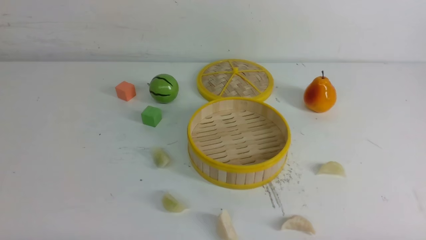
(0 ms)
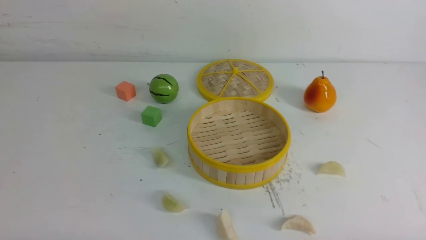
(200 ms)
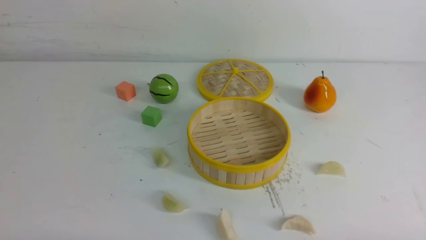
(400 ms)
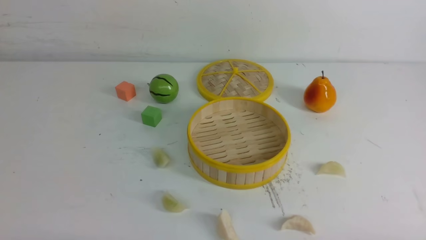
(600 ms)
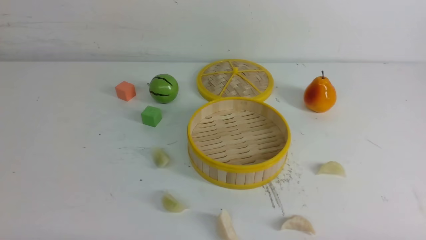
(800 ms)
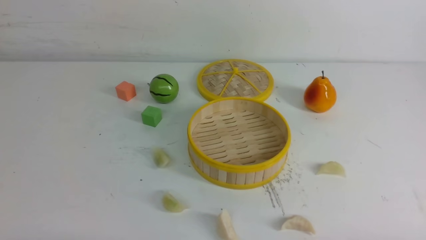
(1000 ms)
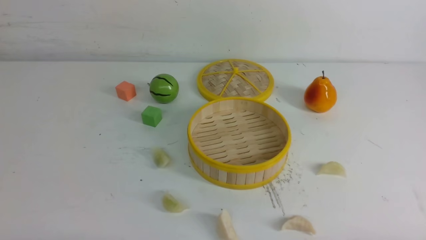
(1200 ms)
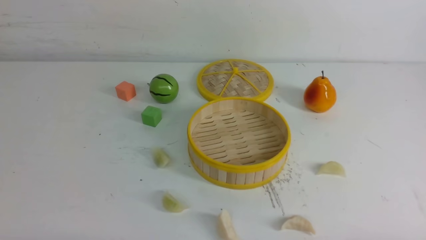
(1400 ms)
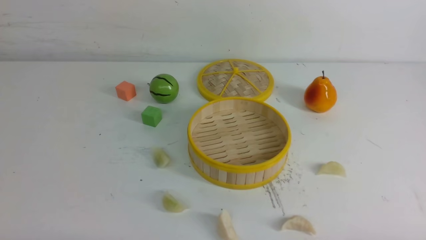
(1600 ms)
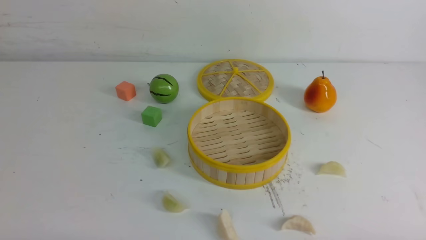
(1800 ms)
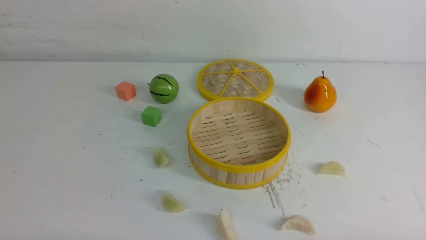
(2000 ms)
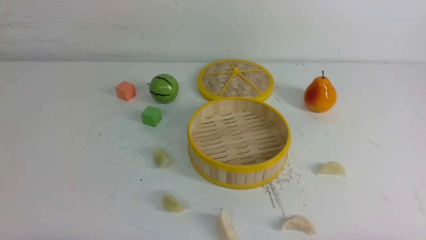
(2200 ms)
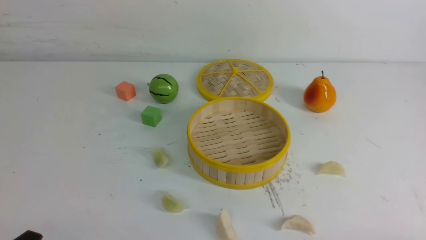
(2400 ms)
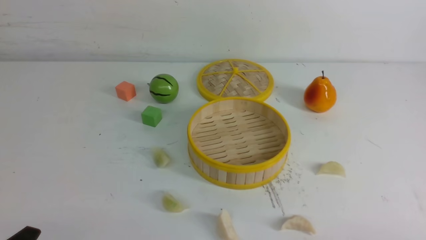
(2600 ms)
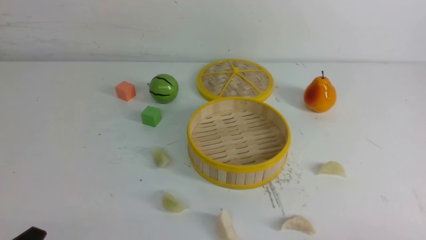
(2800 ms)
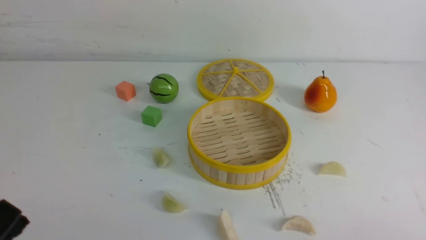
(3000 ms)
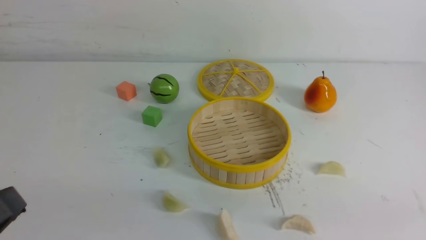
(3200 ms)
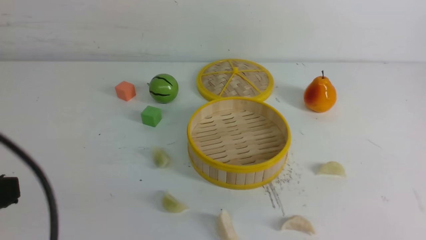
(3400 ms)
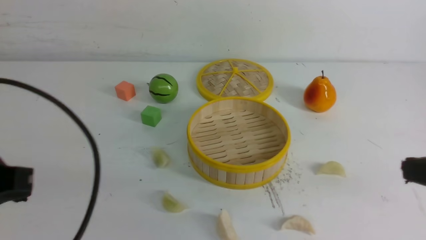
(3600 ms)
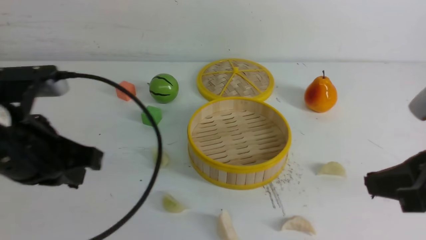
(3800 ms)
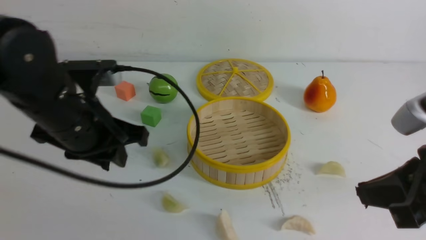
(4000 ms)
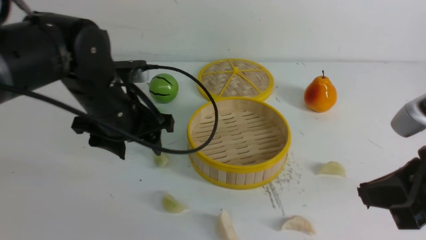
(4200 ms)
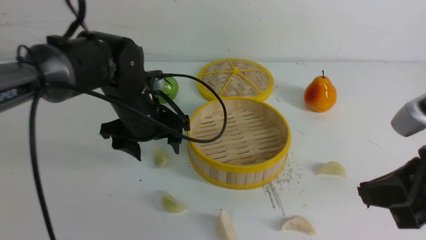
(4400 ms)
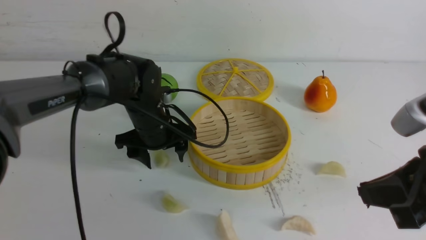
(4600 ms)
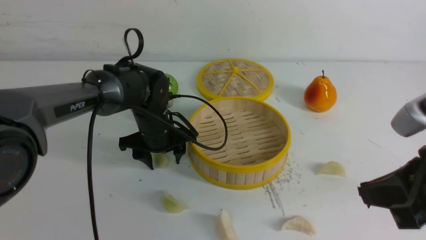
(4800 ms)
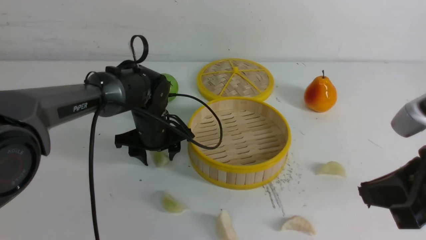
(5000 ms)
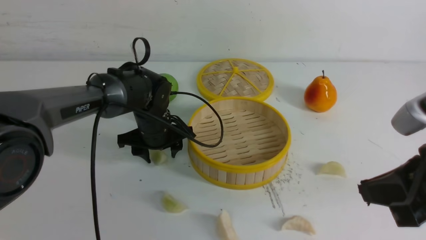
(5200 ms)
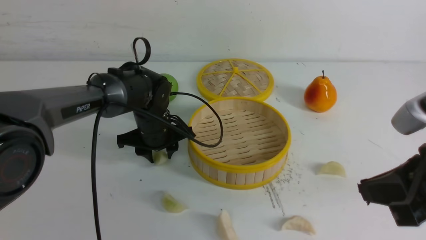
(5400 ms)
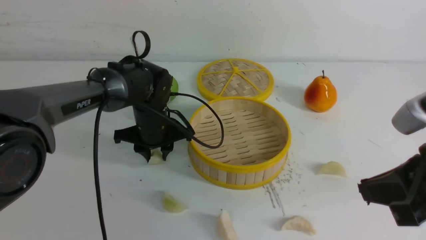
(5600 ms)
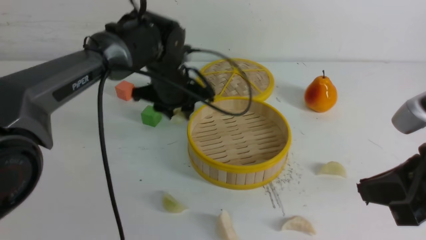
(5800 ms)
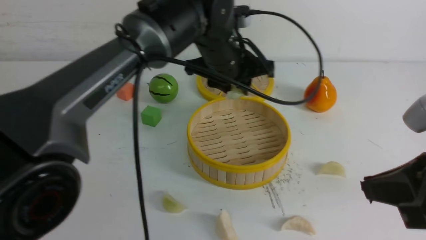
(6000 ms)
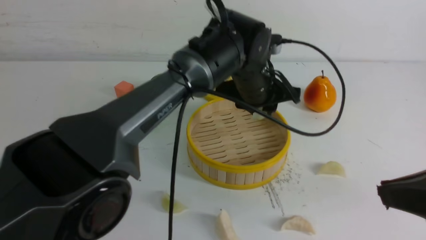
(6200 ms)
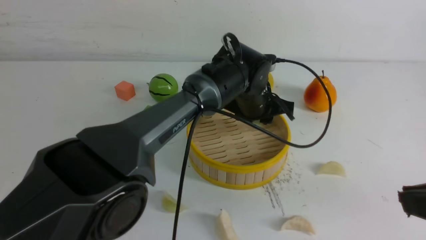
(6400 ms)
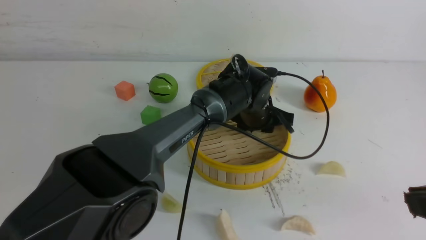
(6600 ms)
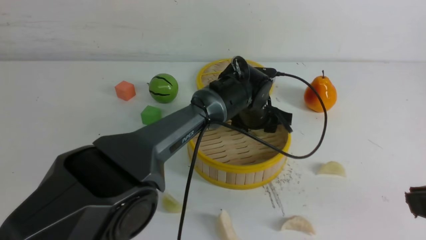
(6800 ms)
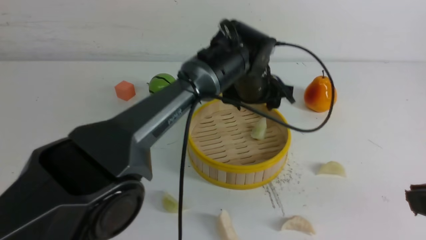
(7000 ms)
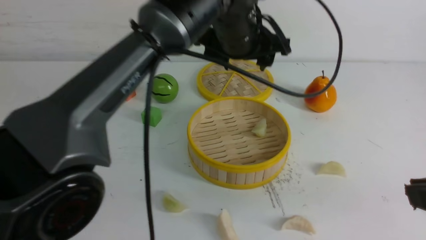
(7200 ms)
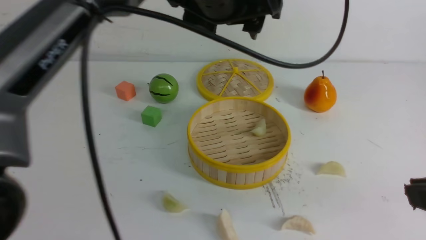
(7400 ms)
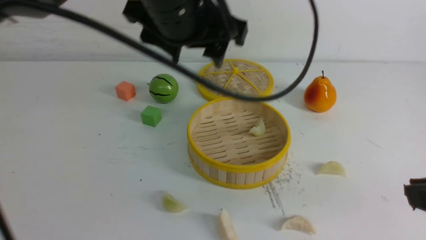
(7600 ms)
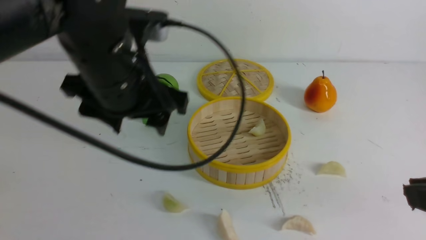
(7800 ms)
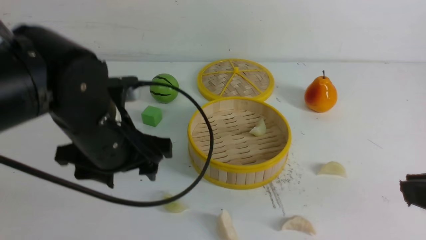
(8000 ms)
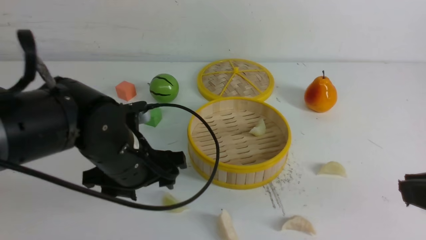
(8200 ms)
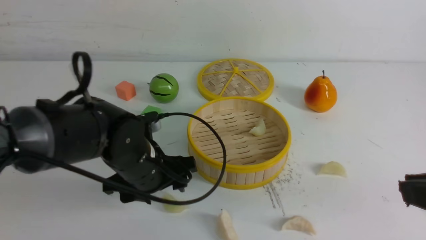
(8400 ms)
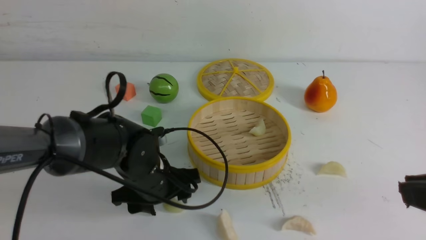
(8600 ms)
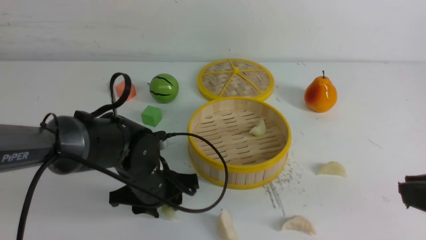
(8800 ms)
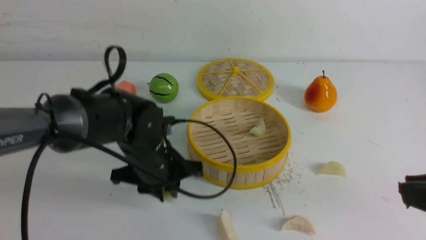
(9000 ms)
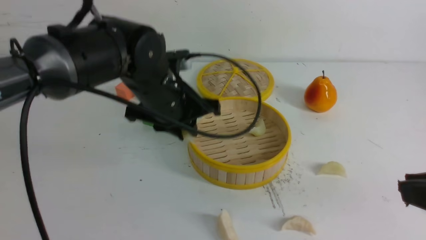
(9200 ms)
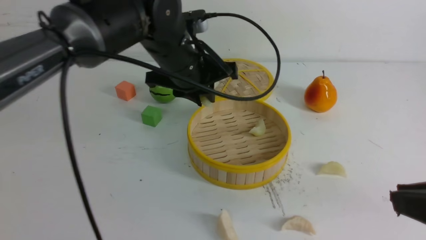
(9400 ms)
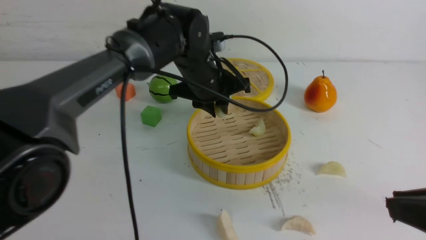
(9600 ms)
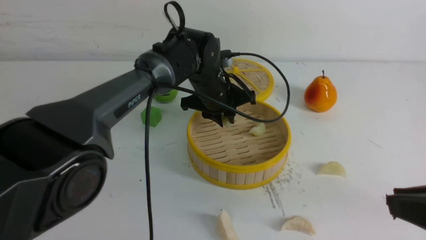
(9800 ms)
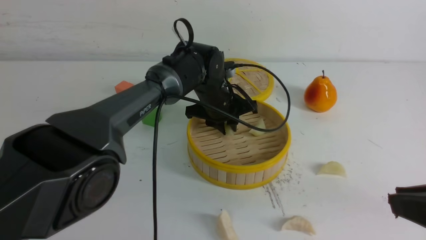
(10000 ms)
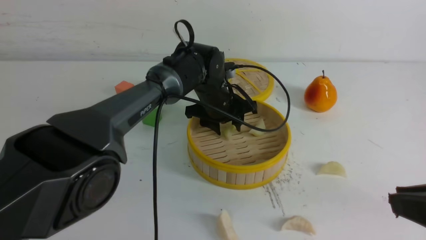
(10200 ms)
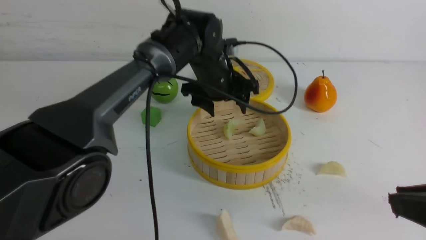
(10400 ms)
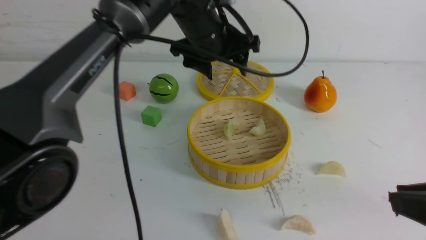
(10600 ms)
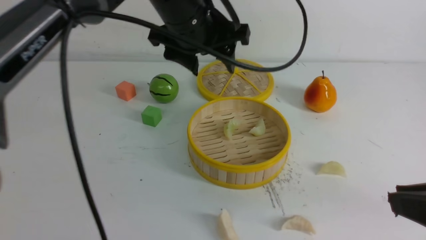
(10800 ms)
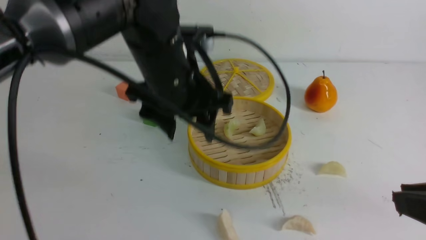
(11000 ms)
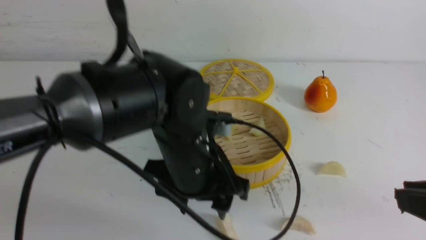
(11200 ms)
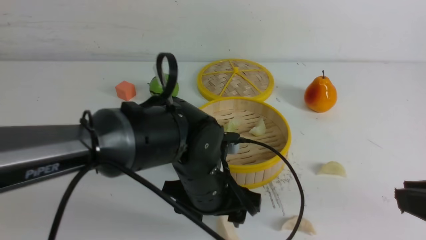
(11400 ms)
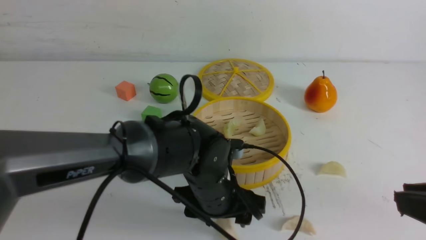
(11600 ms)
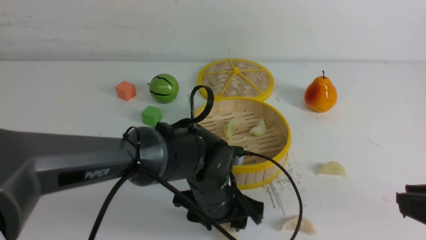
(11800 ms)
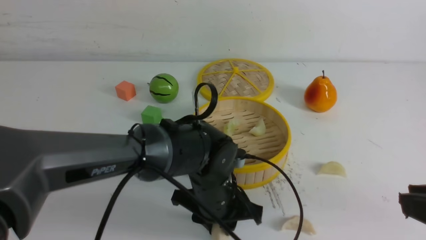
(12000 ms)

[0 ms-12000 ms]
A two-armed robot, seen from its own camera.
Task of the whole recording: put the dumplings into the steamer on the white table.
Step, 0 ms to 5600 ms: use the left arm to grab a dumpling.
Step, 5800 ms to 6800 ms: use the left arm to put the dumpling into the steamer.
Step, 7000 ms to 8800 ms: use the left arm to grab a dumpling.
Step, 9000 ms to 10200 ms: use the left arm to put the dumpling into the steamer.
Step, 10400 ms to 12000 ms: use the left arm to grab a dumpling.
0 ms to 1600 ms: The two grippers keep their place.
1600 ms to 3000 ms: The left gripper is displaced upward by approximately 10 cm.
3000 ms to 4400 ms: The left gripper heads forward, covering some 35 cm, and opens its fingers. Meanwhile the right gripper moves forward, upward and to the left, about 15 cm, and closes.
4400 ms to 6000 ms: The left gripper goes about 15 cm to the right and upward, and closes its fingers.
6000 ms to 7600 ms: The left gripper moves upward, backward and to the left, roughly 15 cm, and opens its fingers, while the right gripper shifts by about 5 cm.
7600 ms to 9000 ms: The left gripper moves downward, roughly 20 cm, and closes up.
9000 ms to 10400 ms: The left gripper is displaced forward, to the right and upward by approximately 15 cm, and opens.
10400 ms to 12000 ms: The left gripper is displaced backward and downward by roughly 20 cm, and closes its fingers.

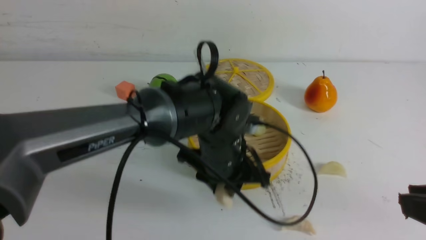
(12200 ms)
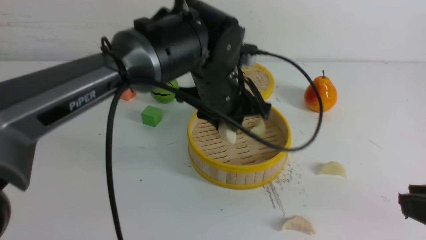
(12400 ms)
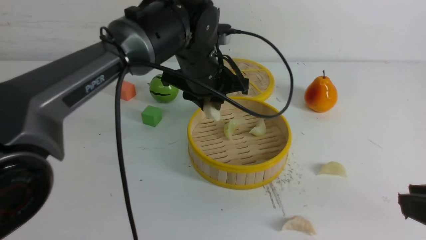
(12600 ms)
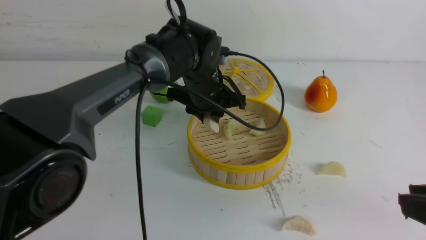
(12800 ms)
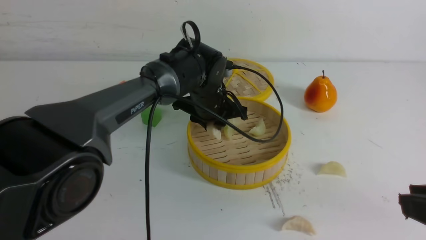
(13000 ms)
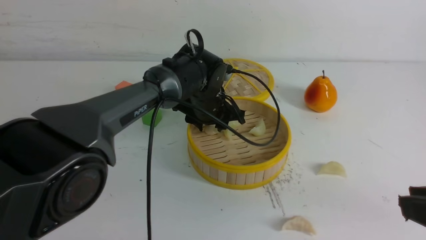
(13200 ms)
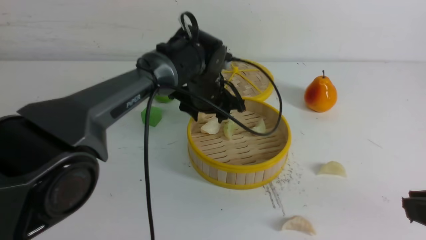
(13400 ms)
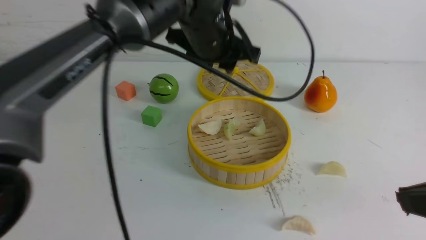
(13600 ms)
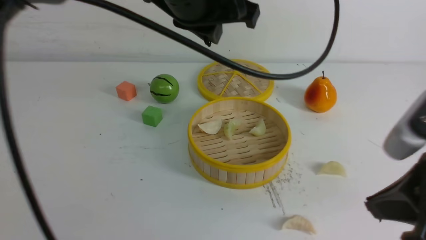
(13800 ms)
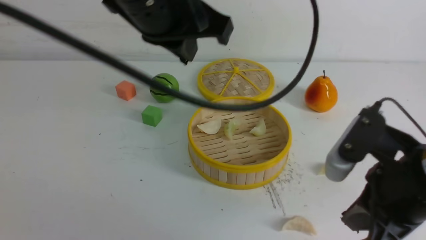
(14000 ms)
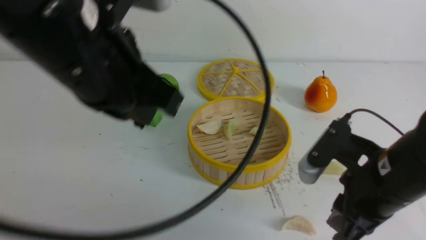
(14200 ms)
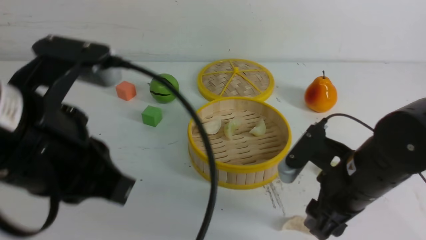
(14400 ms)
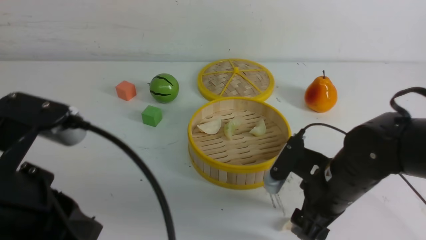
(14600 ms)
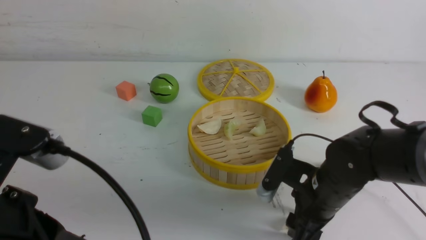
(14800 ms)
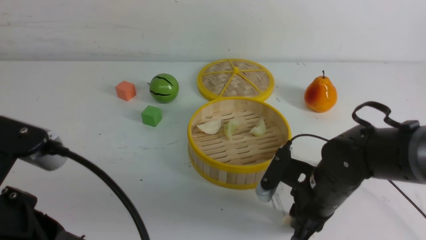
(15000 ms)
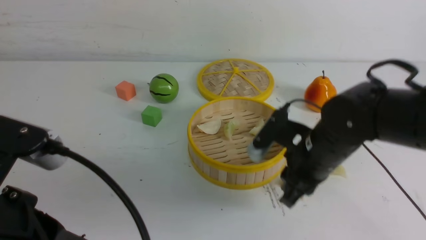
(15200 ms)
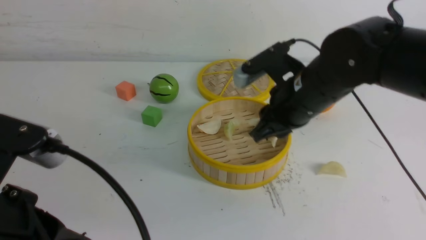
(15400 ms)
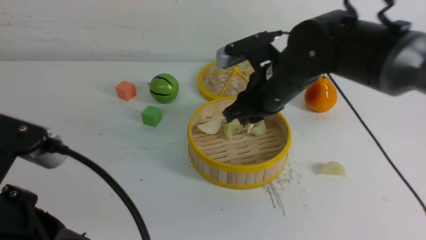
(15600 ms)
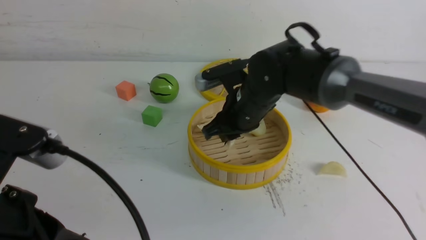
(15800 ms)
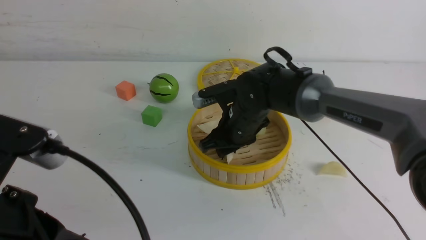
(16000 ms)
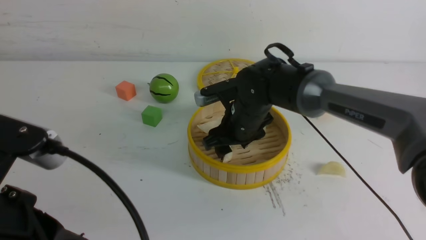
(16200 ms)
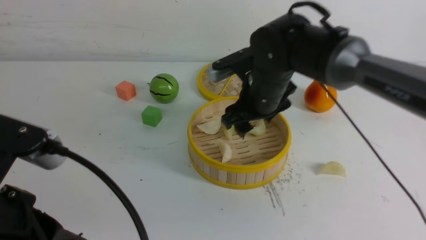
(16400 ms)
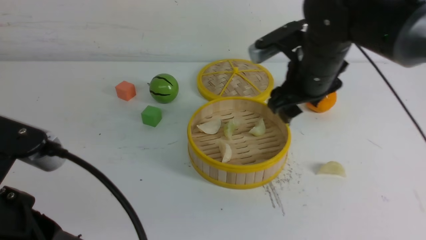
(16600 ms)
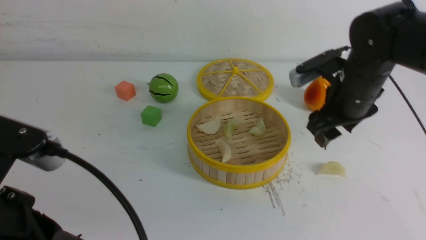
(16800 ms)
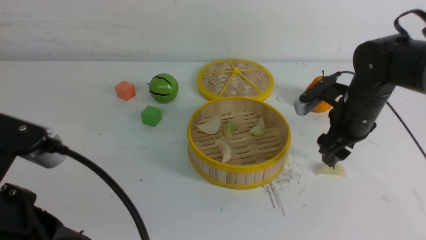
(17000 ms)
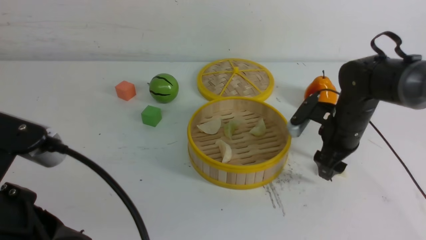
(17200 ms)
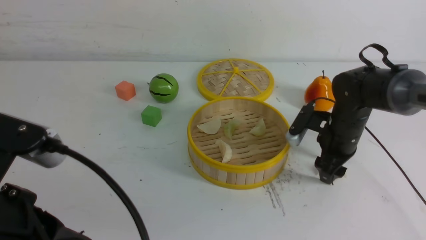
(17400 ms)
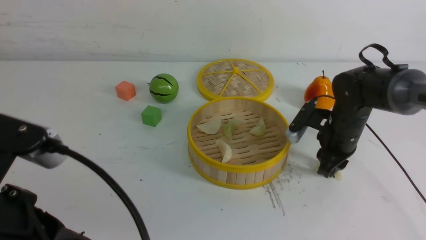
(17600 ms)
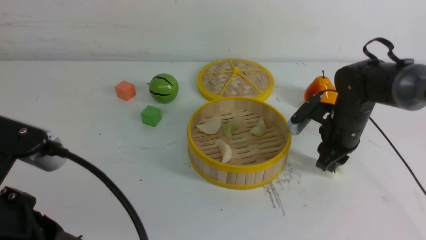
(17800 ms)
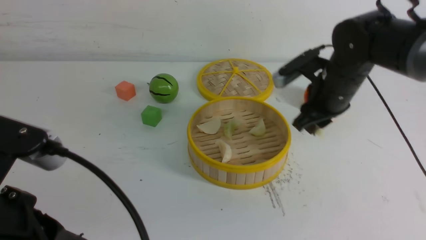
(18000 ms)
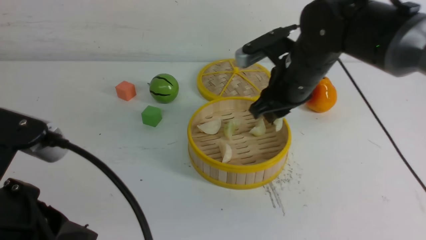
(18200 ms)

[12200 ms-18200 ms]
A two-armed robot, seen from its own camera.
Task of the whole recording: put the dumplings into the steamer on the white table.
Step, 12200 ms to 13200 ms: use the left arm to put the dumpling into the steamer.
Step, 13400 ms to 15000 ms: use the right arm to grab a dumpling.
Step, 15200 ms to 16000 ms: use the right arm to put the dumpling into the steamer.
Step, 16200 ms to 17600 ms: use the right arm to grab a dumpling.
12200 ms to 13800 ms: The right gripper moves forward, about 5 cm. The left gripper goes up and down, approximately 20 cm each way, reversing 2 times.
13800 ms to 15200 ms: The right gripper heads forward, downward and to the left, covering roughly 20 cm, and opens; the left gripper is displaced backward, to the left and downward by about 25 cm.
15200 ms to 16600 ms: The right gripper shifts roughly 10 cm forward and upward, reaches some 10 cm to the left, then returns, and opens its fingers.
16600 ms to 18200 ms: The right gripper goes downward and returns, approximately 10 cm each way, and closes its fingers.
